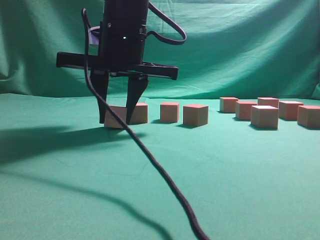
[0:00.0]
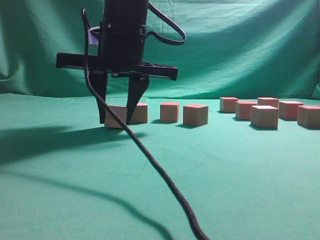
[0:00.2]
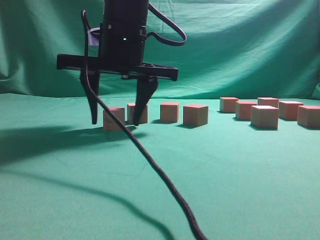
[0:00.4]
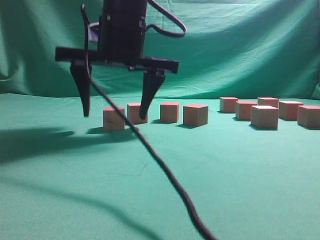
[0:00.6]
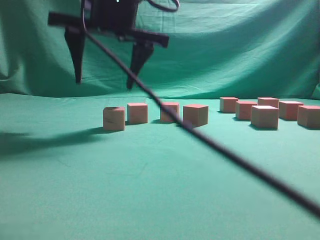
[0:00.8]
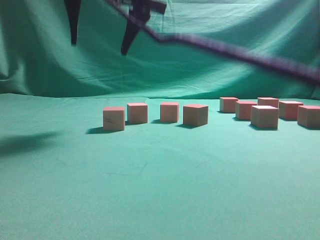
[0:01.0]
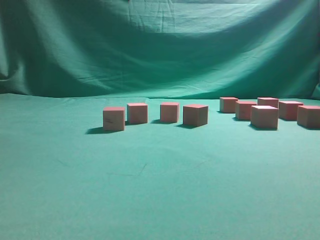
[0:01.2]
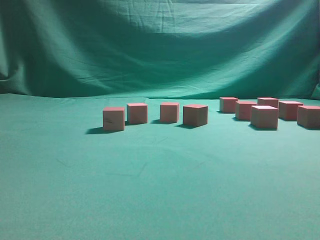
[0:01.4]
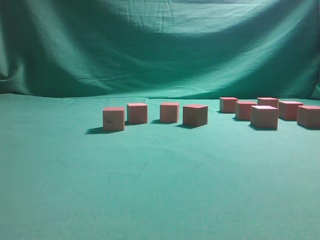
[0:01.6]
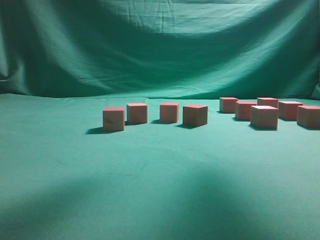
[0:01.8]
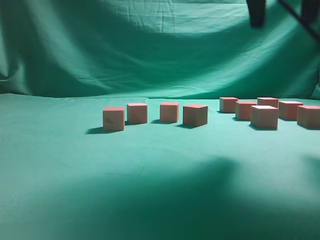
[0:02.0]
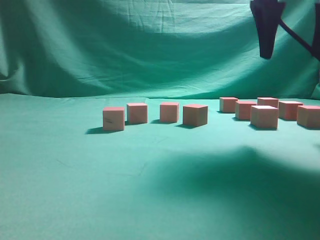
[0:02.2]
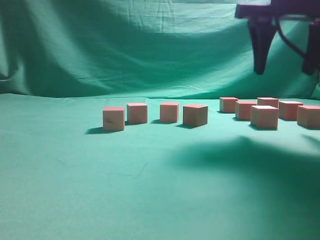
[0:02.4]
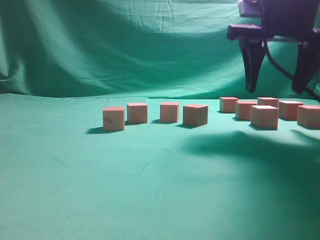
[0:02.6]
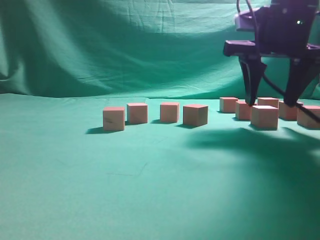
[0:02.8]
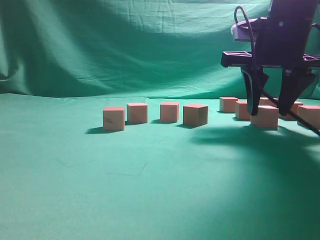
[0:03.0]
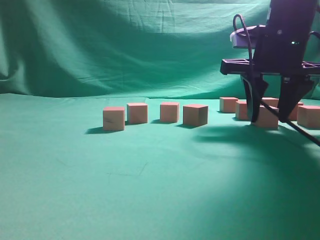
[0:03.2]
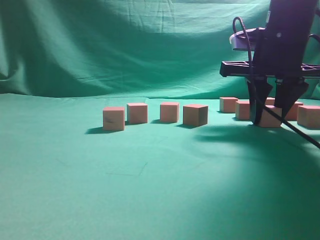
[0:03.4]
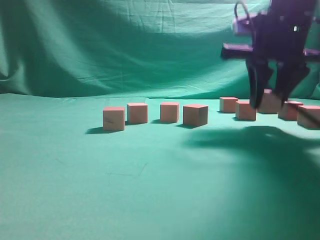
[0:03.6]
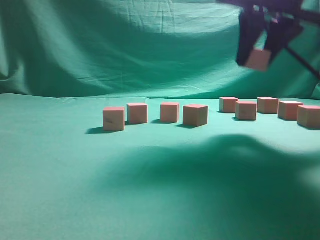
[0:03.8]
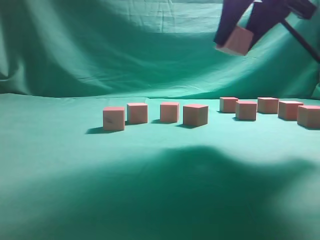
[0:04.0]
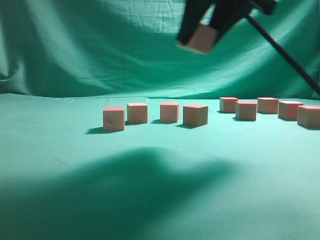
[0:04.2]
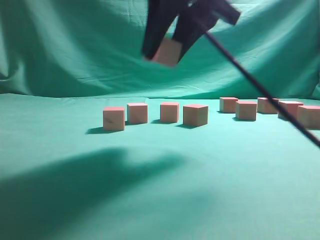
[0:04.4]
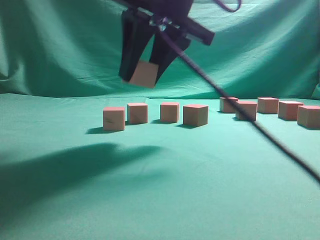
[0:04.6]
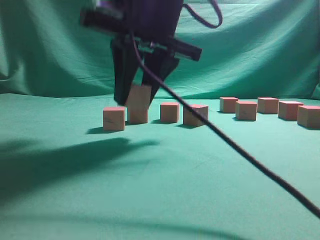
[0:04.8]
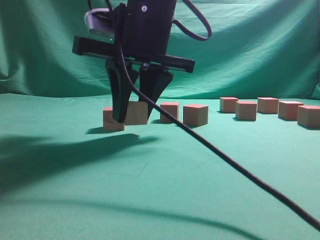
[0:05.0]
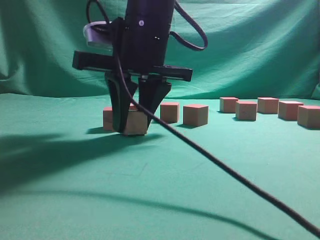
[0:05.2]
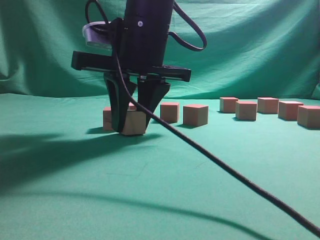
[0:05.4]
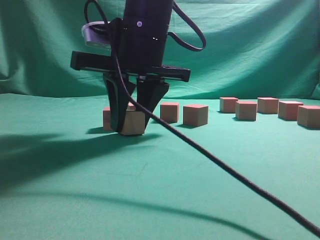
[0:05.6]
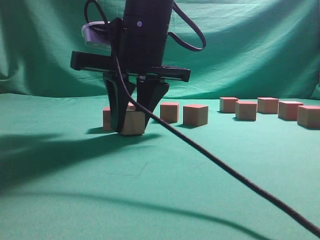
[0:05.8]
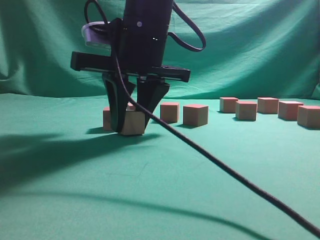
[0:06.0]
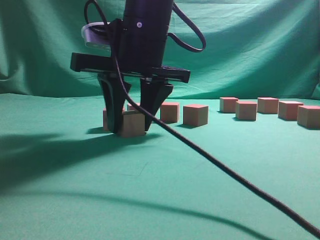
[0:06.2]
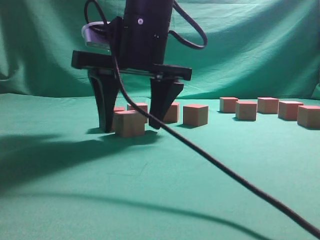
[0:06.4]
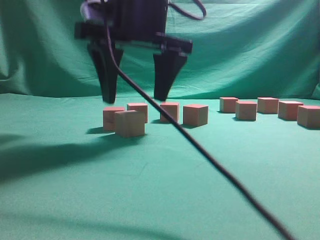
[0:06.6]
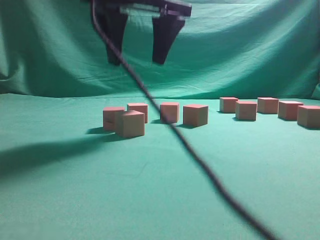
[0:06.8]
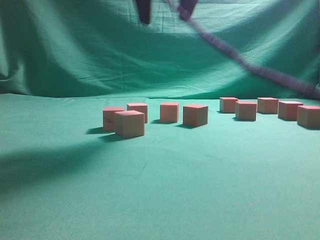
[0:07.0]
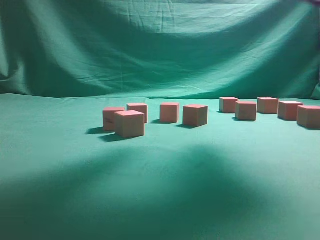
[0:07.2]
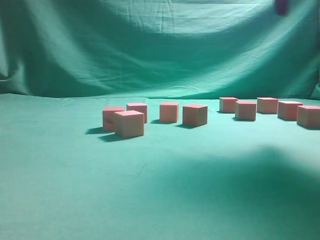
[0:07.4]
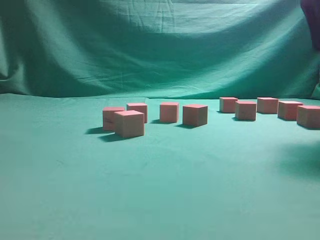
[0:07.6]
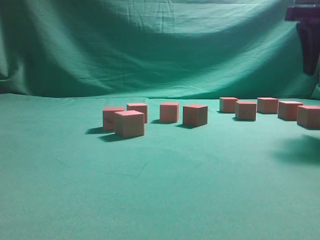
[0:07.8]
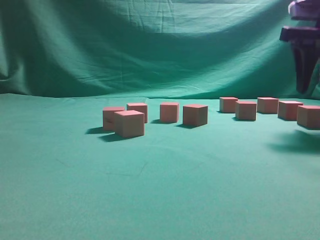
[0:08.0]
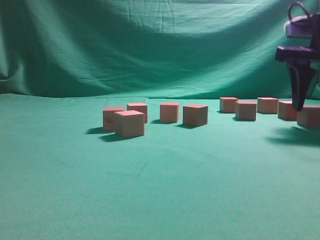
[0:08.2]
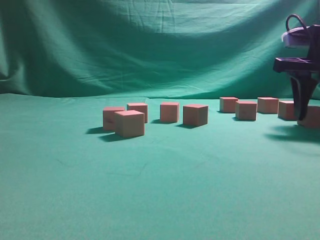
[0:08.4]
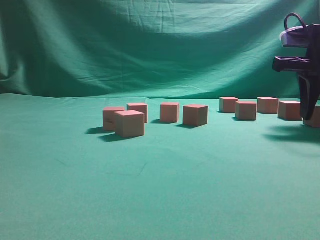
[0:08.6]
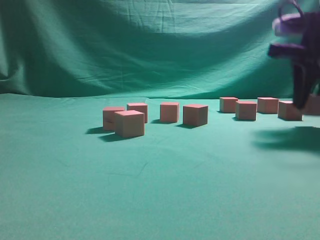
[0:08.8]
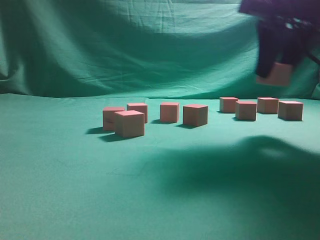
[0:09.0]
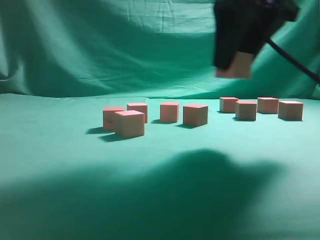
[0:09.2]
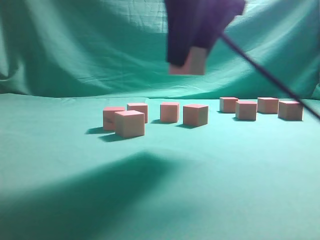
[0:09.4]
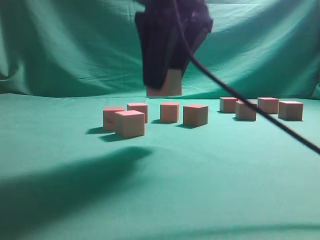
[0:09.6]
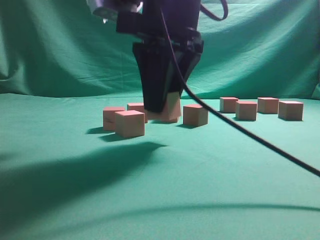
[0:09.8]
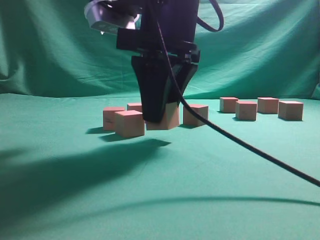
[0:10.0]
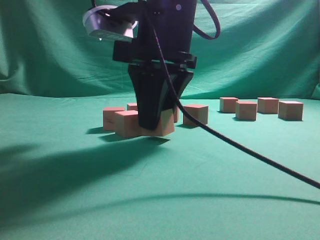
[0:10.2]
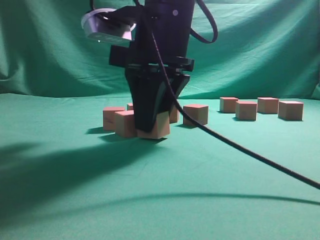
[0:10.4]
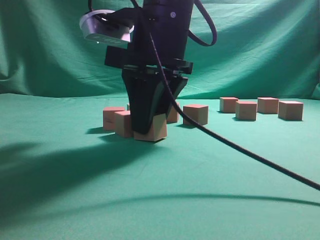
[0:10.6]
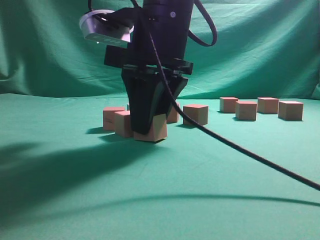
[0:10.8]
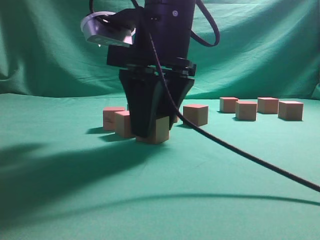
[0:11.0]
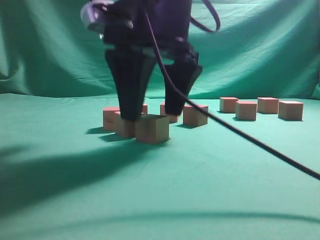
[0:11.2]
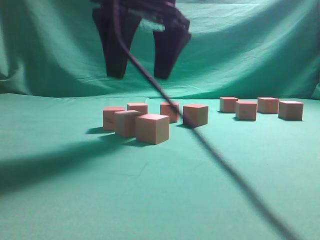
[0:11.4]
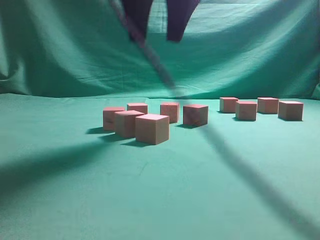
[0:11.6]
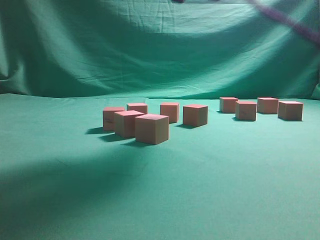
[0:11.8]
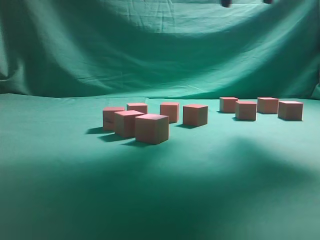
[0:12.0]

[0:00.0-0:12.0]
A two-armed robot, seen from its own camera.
Task of the whole recording: pick up the multiple cubes in two columns one by one and place them in another position on the table.
Step, 1.2 to 3.6 s: Pick up the block on the table.
Step, 3.8 to 6.8 s: Place the block at the correct position to assemble the letter S.
Step, 7.0 to 8.8 s: Pick up the block on the table.
Step, 9.0 to 11.4 s: Place the block at the correct position to assemble the letter S.
0.0 to 1.6 s: The right gripper is displaced upward and to the right by approximately 25 cm, and opens.
1.6 to 3.0 s: The right gripper heads downward and to the right, covering approximately 25 cm.
3.0 to 4.4 s: The right gripper heads to the left, backward and upward, covering some 15 cm.
4.4 to 6.0 s: The right gripper shifts roughly 10 cm downward and to the left.
6.0 to 7.6 s: The right gripper moves to the right, some 25 cm, and opens.
7.6 to 9.0 s: The right gripper is displaced to the left by approximately 5 cm, and closes.
9.0 to 10.4 s: The right gripper shifts some 15 cm to the left.
10.4 to 12.0 s: The right gripper heads upward, to the right and forward, covering approximately 20 cm, and opens its fingers.

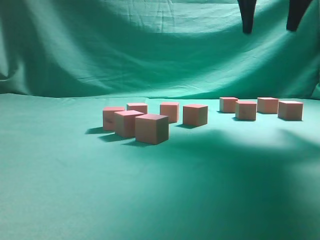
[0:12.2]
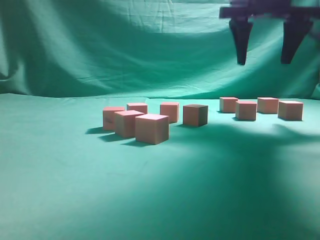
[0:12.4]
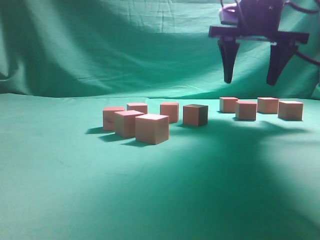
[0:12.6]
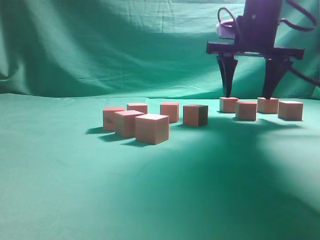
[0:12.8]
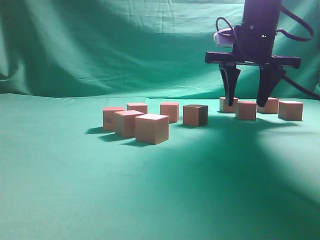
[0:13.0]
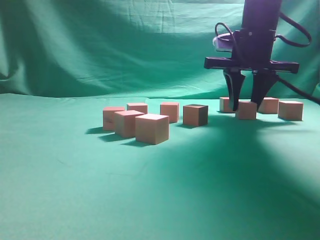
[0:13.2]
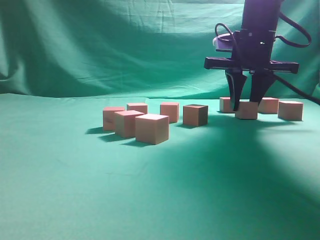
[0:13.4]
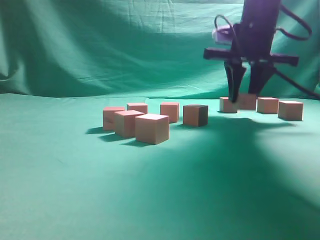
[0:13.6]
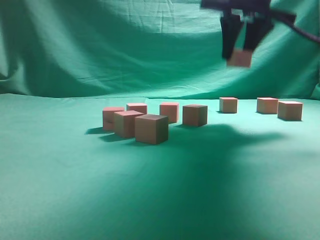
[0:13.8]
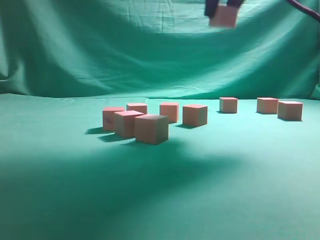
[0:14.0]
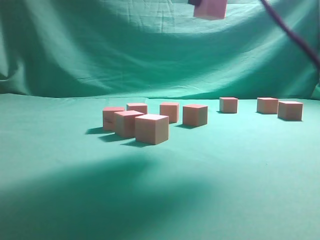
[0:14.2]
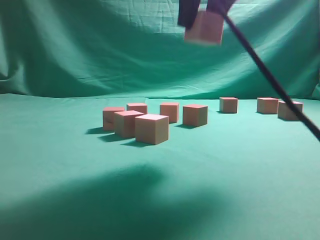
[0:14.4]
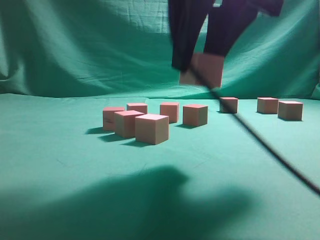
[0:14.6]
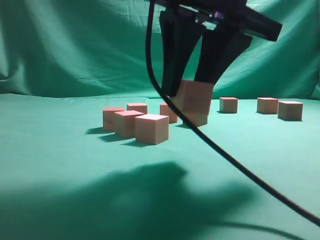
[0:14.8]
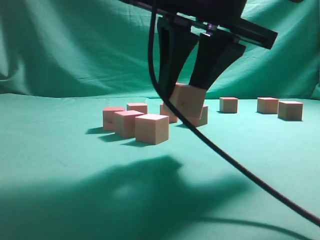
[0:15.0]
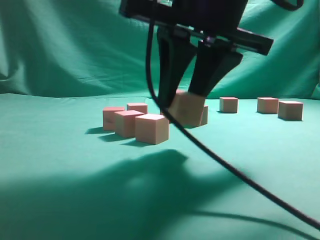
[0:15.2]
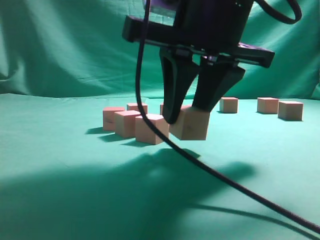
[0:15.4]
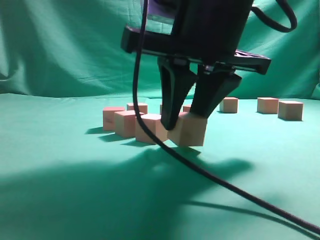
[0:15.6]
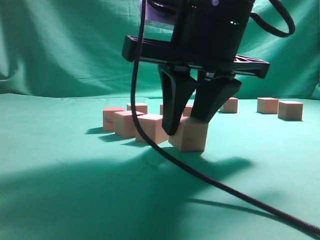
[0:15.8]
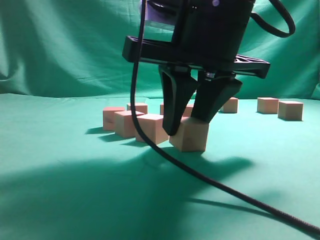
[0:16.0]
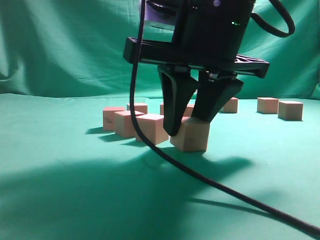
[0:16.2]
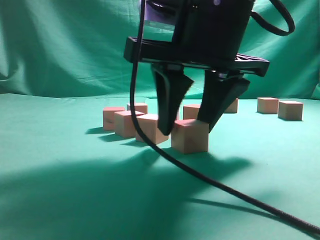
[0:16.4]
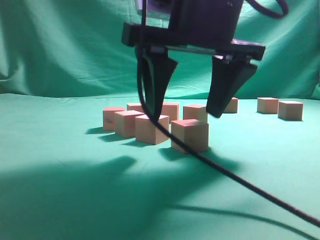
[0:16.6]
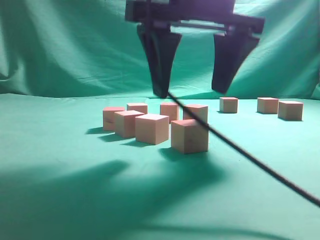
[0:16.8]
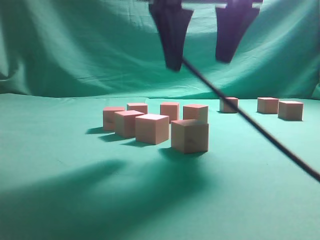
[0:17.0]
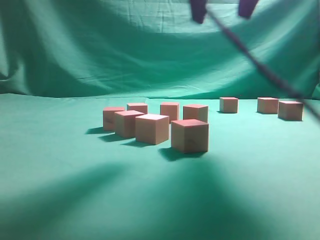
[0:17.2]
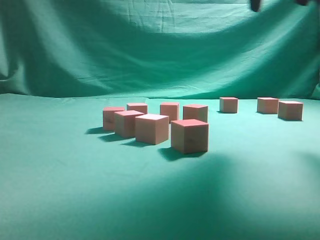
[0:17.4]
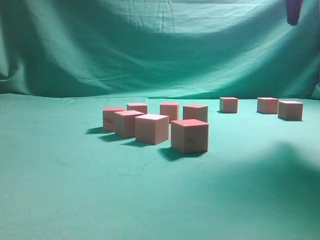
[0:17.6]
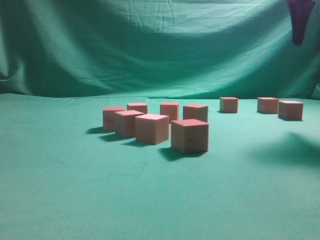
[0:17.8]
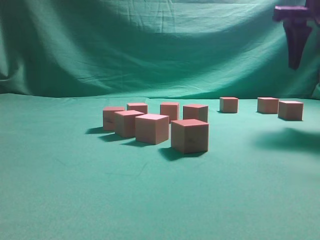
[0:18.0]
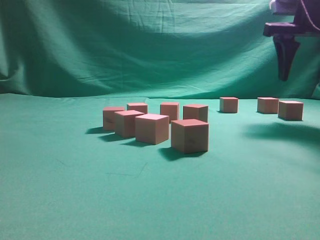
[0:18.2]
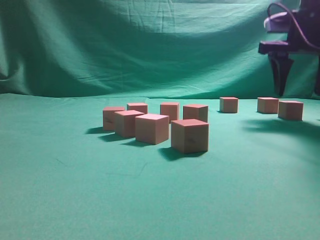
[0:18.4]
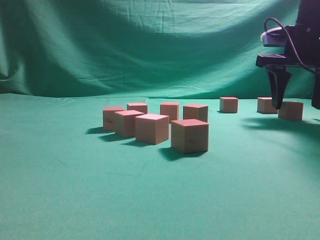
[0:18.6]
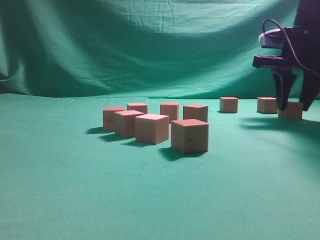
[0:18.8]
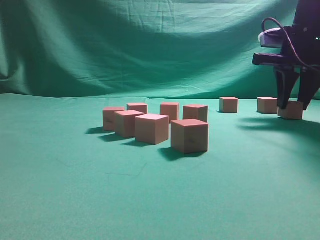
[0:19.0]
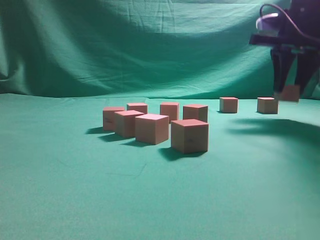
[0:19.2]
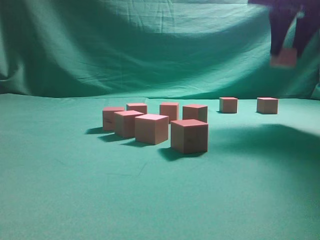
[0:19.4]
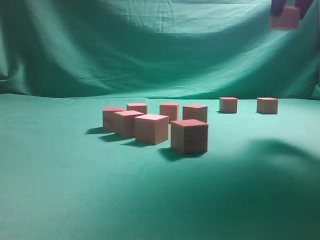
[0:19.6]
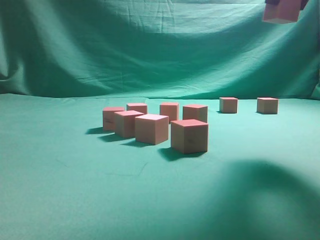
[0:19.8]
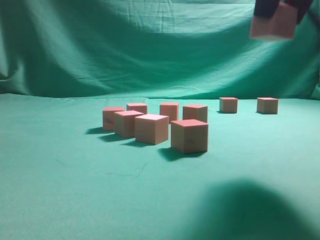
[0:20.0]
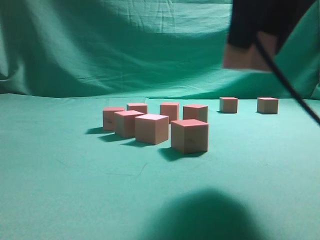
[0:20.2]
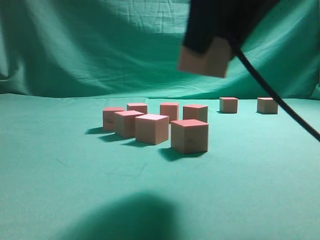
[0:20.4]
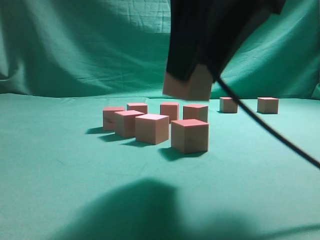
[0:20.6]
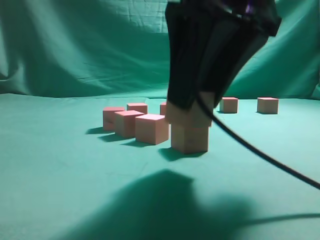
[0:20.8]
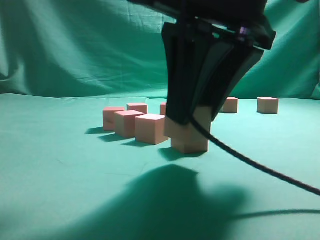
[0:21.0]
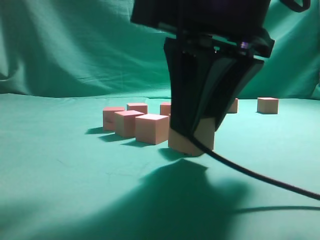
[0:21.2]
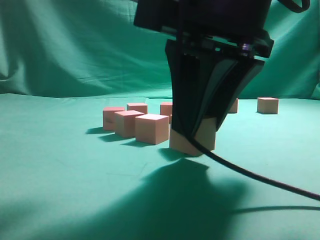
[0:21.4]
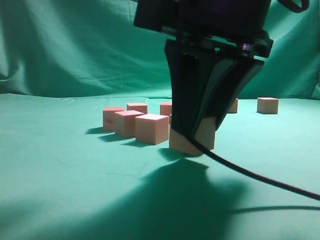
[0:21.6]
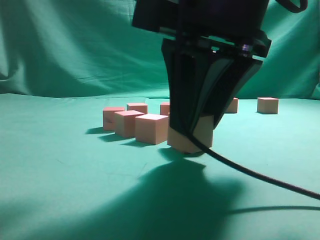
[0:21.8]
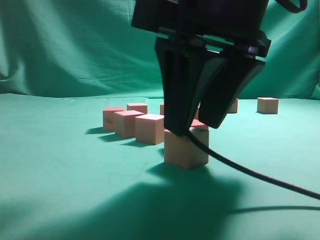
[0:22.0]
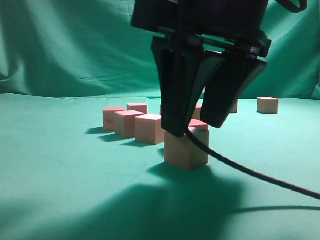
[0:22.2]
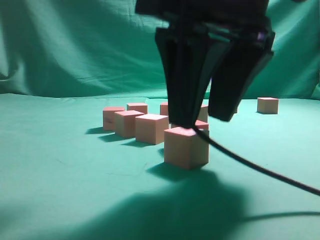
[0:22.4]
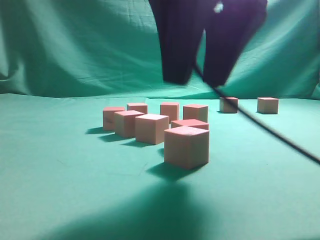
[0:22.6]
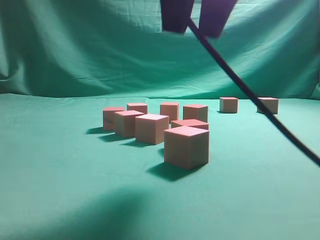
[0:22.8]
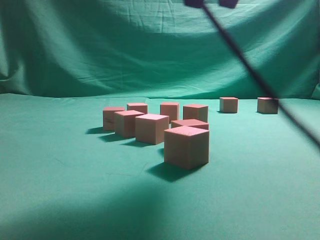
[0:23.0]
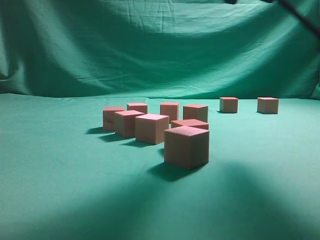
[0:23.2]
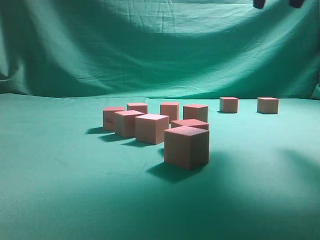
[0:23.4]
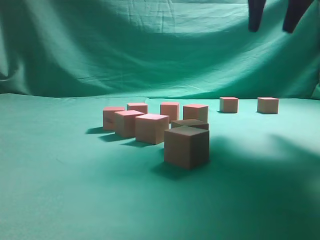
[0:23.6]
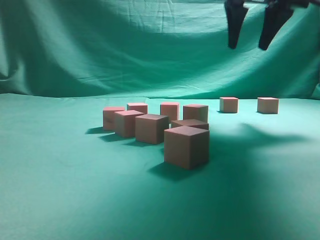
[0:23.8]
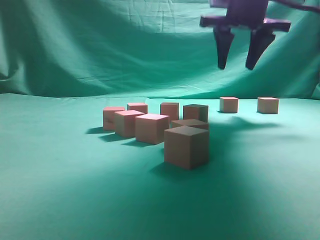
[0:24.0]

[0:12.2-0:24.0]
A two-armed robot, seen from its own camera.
Task of the whole recording: pick up the multiple cubes in two columns one by one and place them in another position on the table.
Step, 12.2 to 13.6 s: Pick up the block on the table.
Step, 13.8 to 17.0 s: Place the block at the correct position to assemble the letter S.
Step, 17.2 to 19.0 s: Pick up the block on the table.
Step, 19.4 to 22.6 s: Place the block at the correct position to assemble the letter S.
12.2 to 13.6 s: The right gripper shifts roughly 10 cm downward, and closes up.
13.6 to 15.2 s: The right gripper goes roughly 25 cm backward and to the left.
15.2 to 16.6 s: The right gripper opens its fingers.
16.6 to 18.2 s: The right gripper travels to the right and forward by roughly 25 cm.
18.2 to 19.6 s: The right gripper heads upward, covering roughly 10 cm, and closes up.
19.6 to 21.0 s: The right gripper goes some 25 cm backward, to the left and downward.
22.6 to 24.0 s: The right gripper heads forward, covering some 25 cm.
